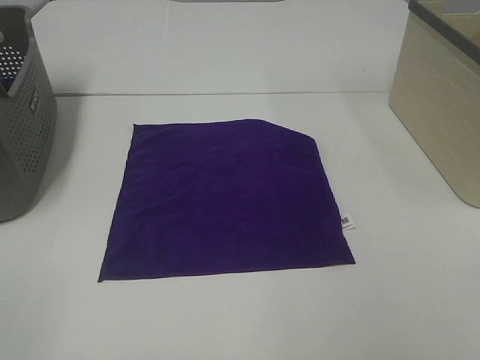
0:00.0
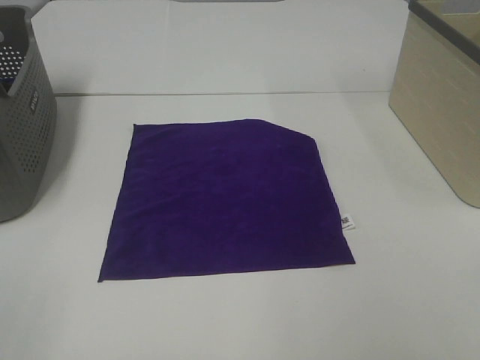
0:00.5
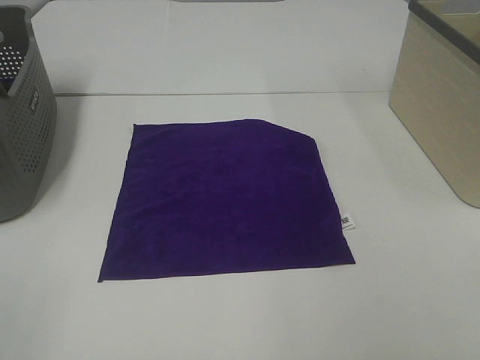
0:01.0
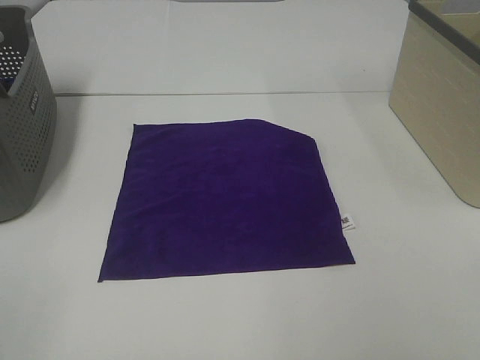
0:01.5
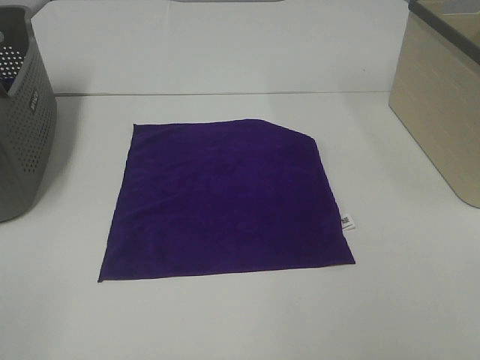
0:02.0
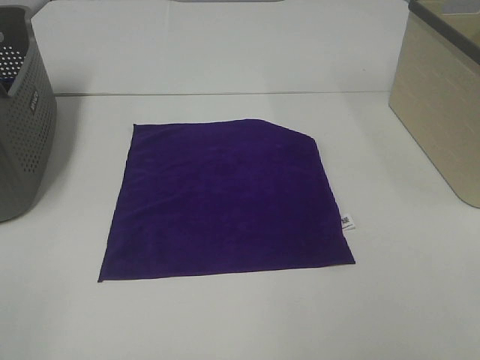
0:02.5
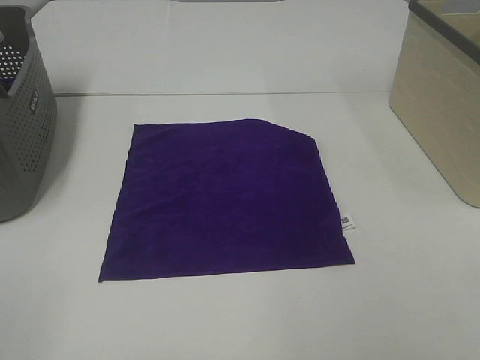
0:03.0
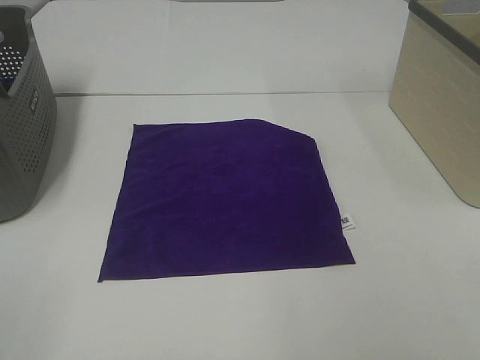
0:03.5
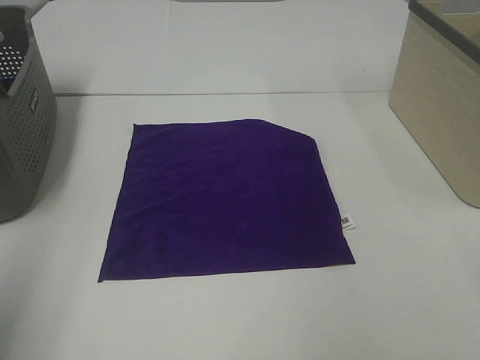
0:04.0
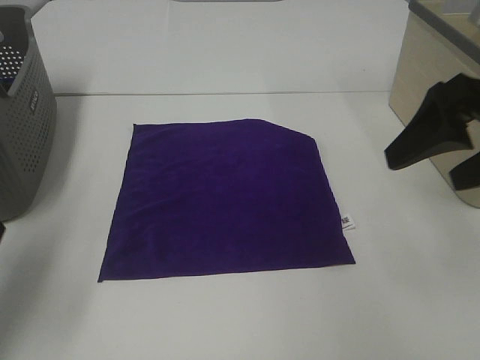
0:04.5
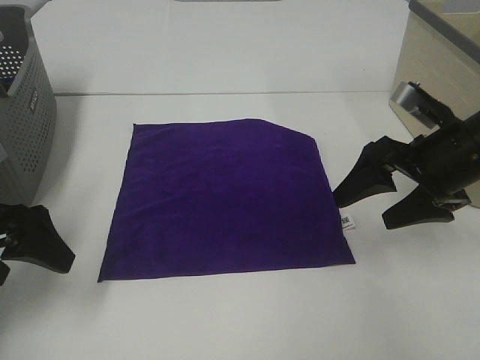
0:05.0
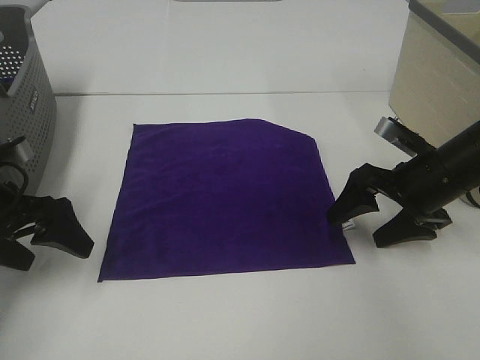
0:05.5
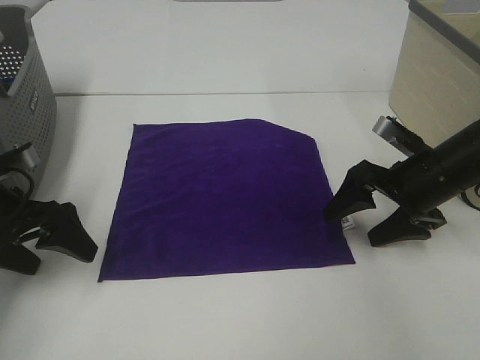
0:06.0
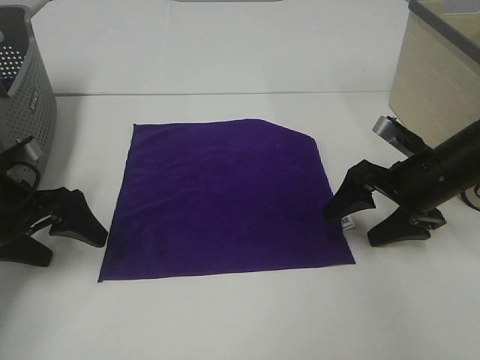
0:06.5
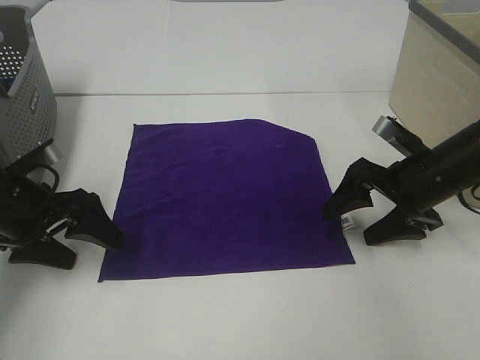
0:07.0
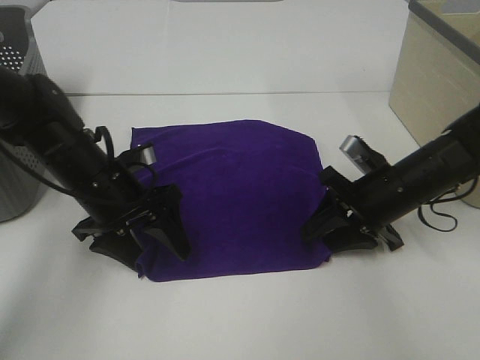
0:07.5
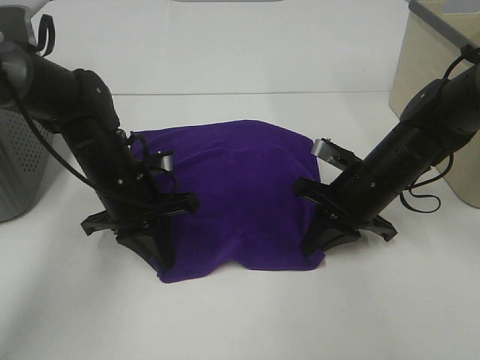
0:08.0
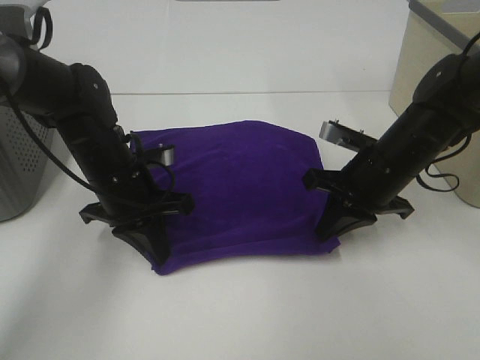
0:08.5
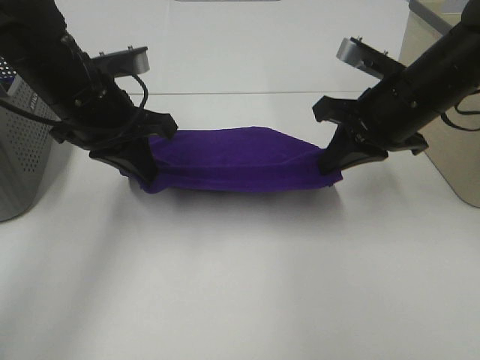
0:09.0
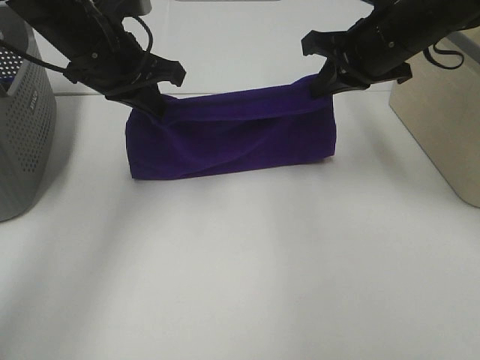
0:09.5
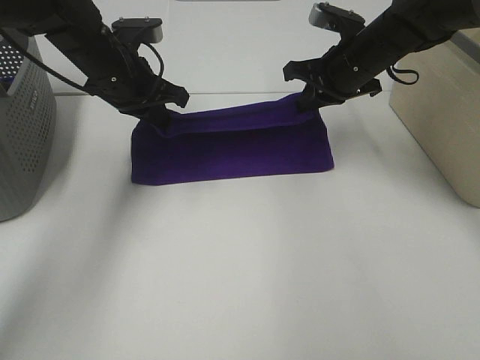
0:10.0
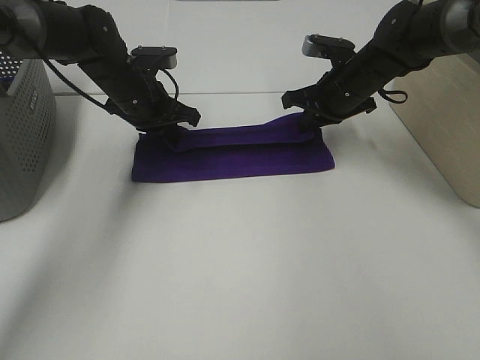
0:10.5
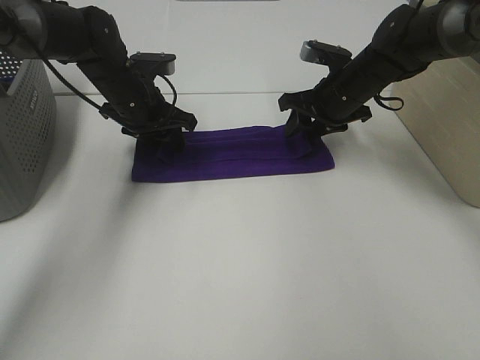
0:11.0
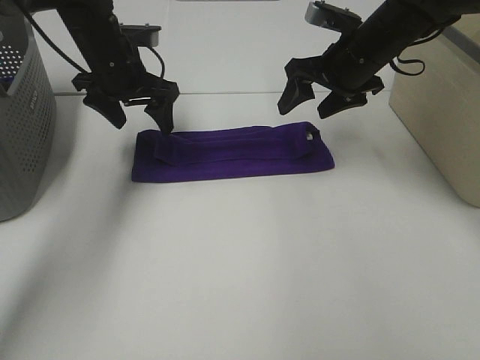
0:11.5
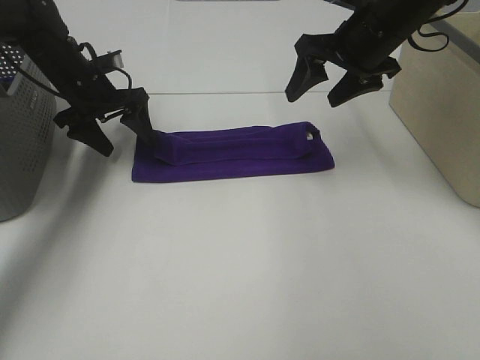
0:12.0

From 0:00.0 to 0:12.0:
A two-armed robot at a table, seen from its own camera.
Task of the whole recording: Fold towels.
Step, from 0:00.0 to 0:08.5: Left hand: grab the bottom left corner of purple towel.
Step, from 0:00.0 to 0:08.5: Right hand: grab the bottom right corner of purple towel.
Step, from 0:09.0 to 0:10.5: Left hand: fold the purple towel up.
Step, from 0:09.0 to 0:10.5: Right hand: fold the purple towel up.
From 0:00.0 to 0:02.0: Both grippers stay about where they are.
From 0:02.0 to 0:04.0: The left gripper shifts approximately 15 cm forward and upward.
From 0:04.0 to 0:06.0: Both grippers move downward and forward, about 30 cm.
From 0:06.0 to 0:08.0: The left gripper travels to the right and forward by approximately 15 cm, and closes, while the right gripper moves to the left, approximately 5 cm, and closes its fingers.
From 0:08.0 to 0:10.0: The grippers both shift forward and upward by roughly 15 cm.
From 0:10.0 to 0:12.0: The left gripper is displaced to the left by roughly 5 cm, and opens, while the right gripper moves upward, about 5 cm, and opens up.

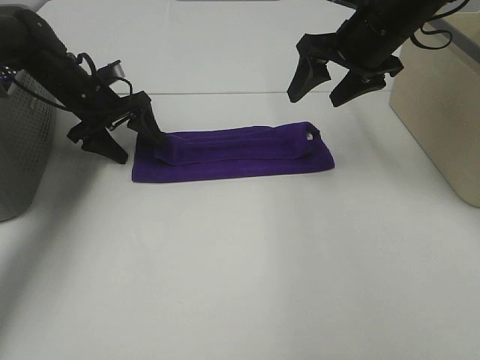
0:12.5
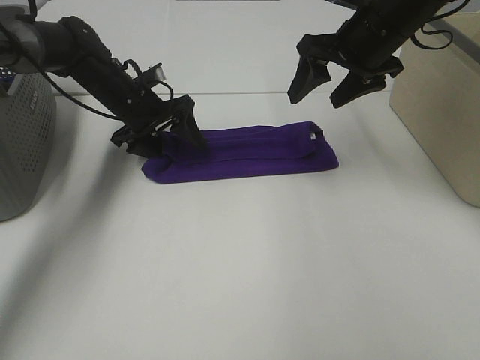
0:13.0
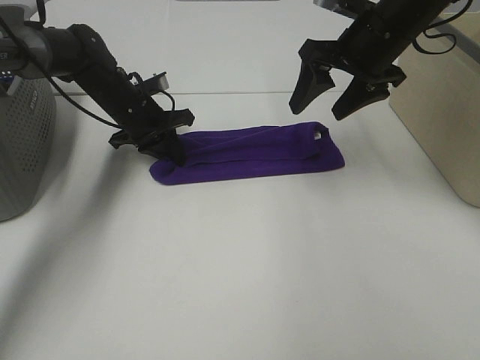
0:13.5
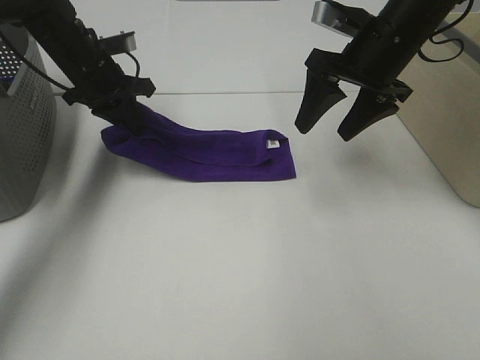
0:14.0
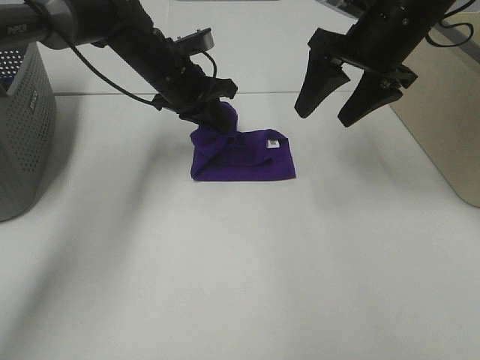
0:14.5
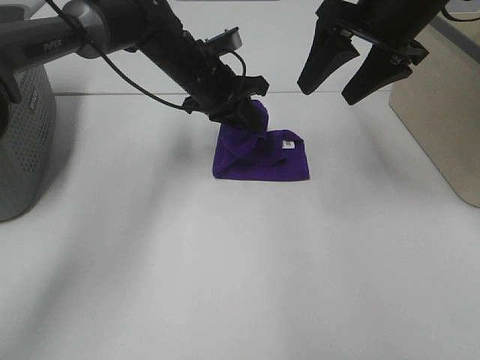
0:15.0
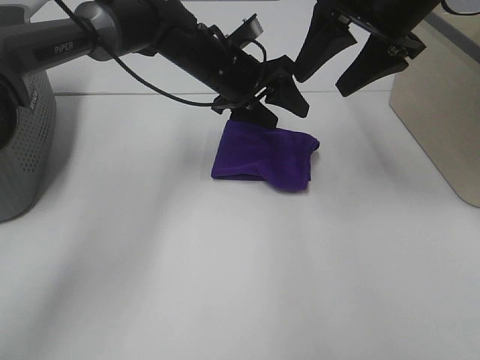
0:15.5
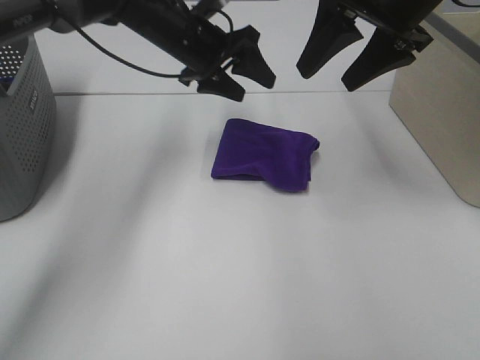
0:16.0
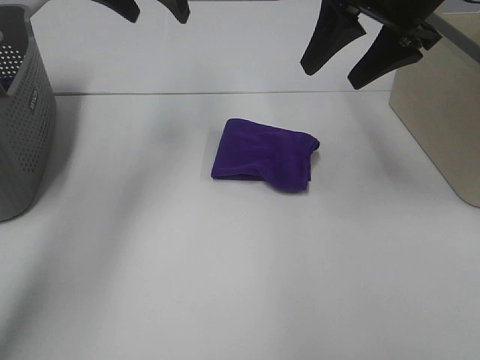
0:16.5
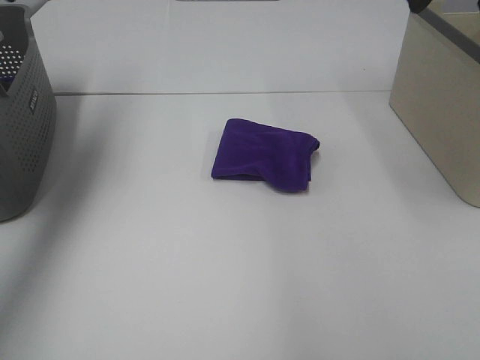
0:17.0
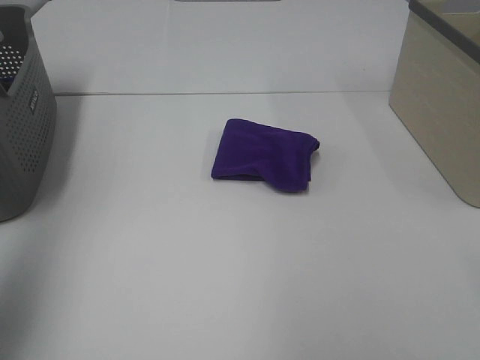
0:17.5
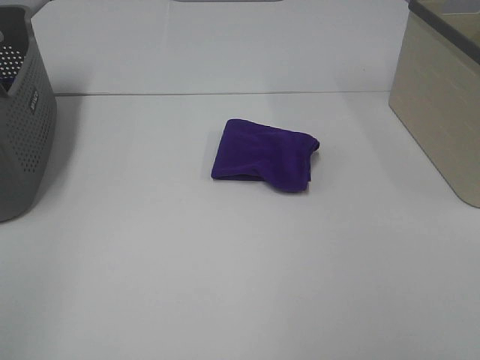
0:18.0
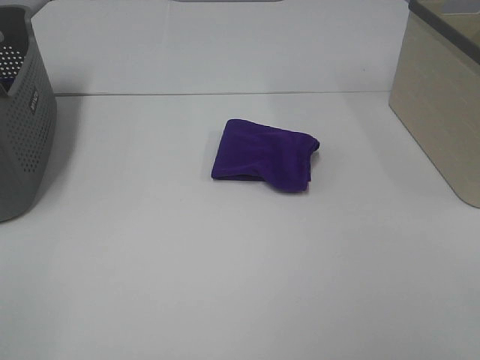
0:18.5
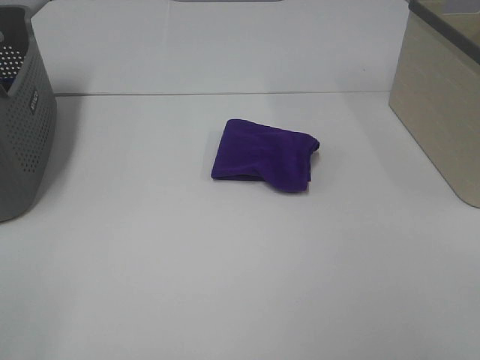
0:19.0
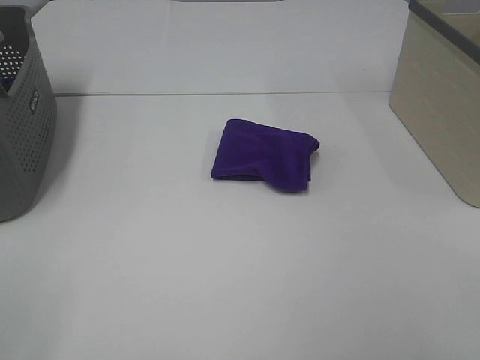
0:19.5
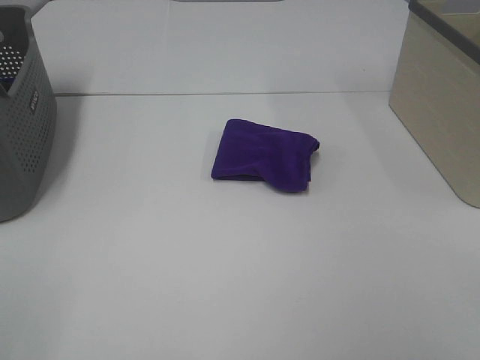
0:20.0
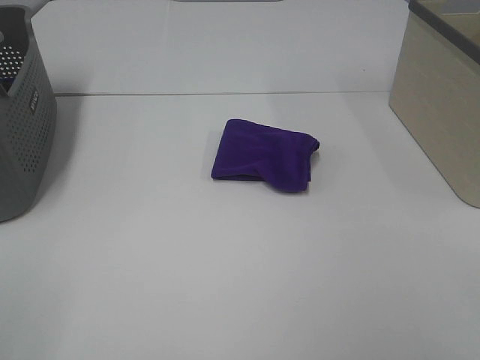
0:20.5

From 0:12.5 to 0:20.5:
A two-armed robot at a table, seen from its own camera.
Task of the whole recording: Fold towels.
Step, from 0:12.5 to 0:15.0: Left hand: fold the purple towel from left to right.
From 0:12.5 to 0:14.5: The left gripper swings left and right, approximately 15 cm each way, with 2 reversals, and closes.
From 0:14.5 to 0:16.5: The left gripper travels upward by some 15 cm, and opens up. The right gripper travels upward by some 5 cm.
From 0:16.5 to 0:18.5: The grippers both shift backward by some 40 cm.

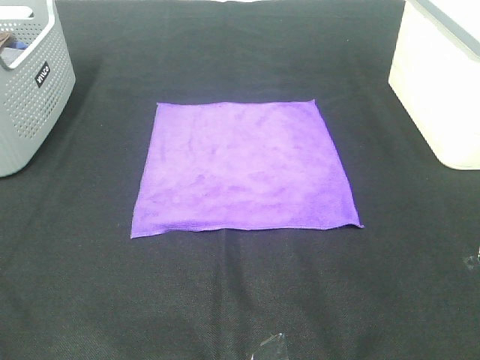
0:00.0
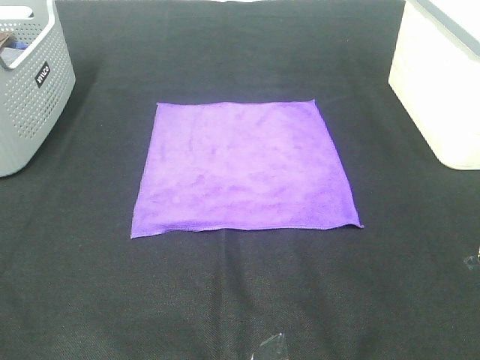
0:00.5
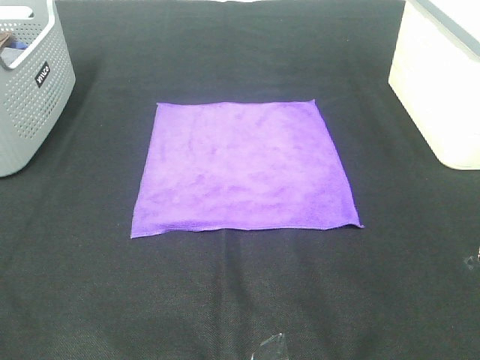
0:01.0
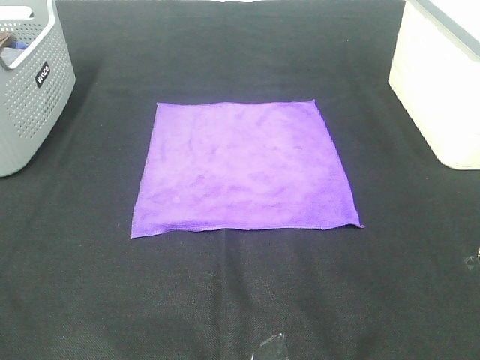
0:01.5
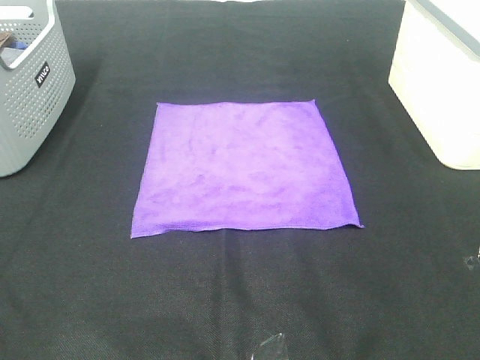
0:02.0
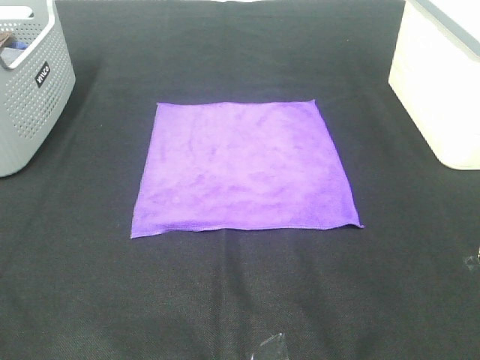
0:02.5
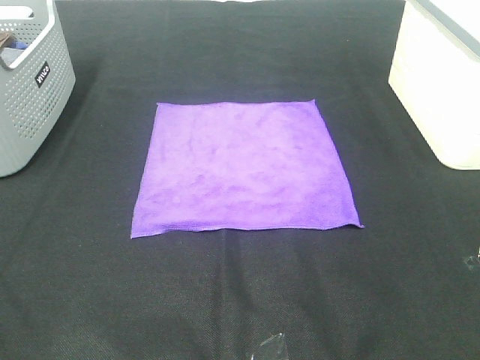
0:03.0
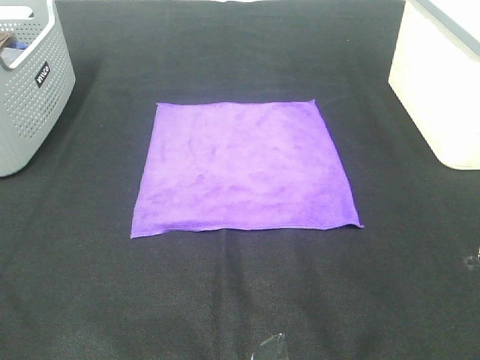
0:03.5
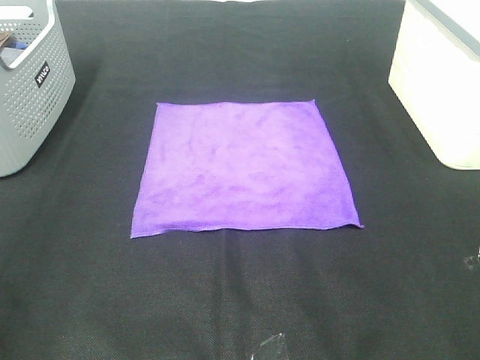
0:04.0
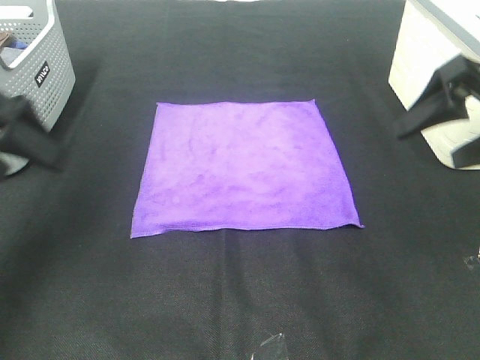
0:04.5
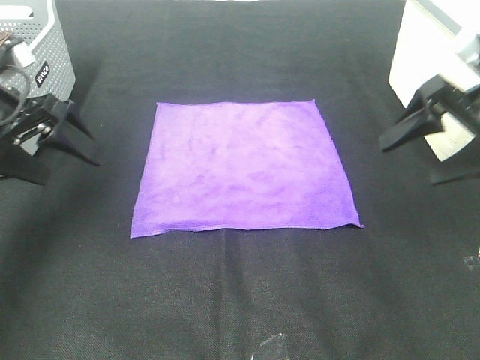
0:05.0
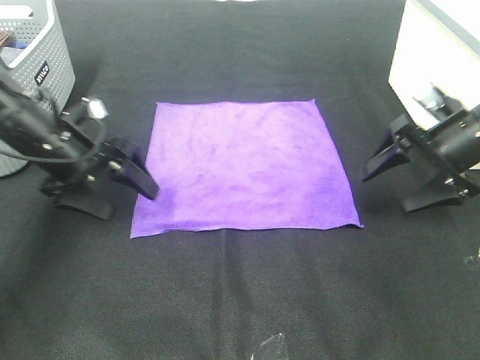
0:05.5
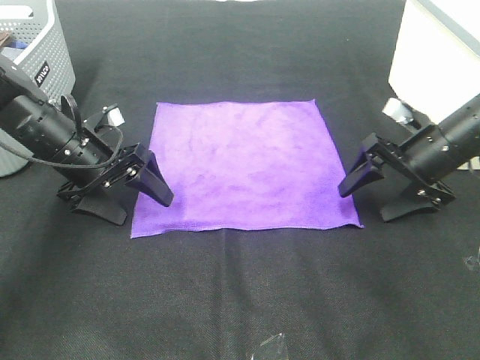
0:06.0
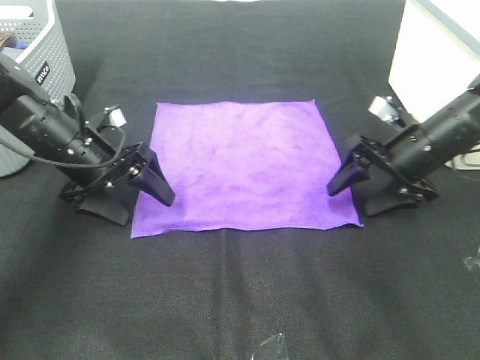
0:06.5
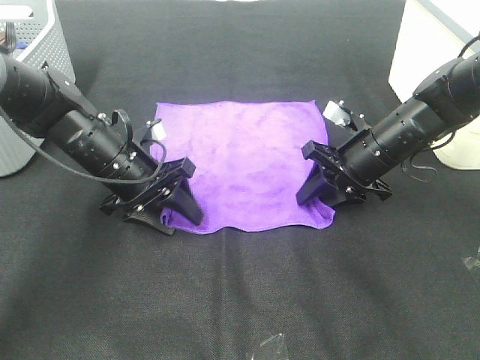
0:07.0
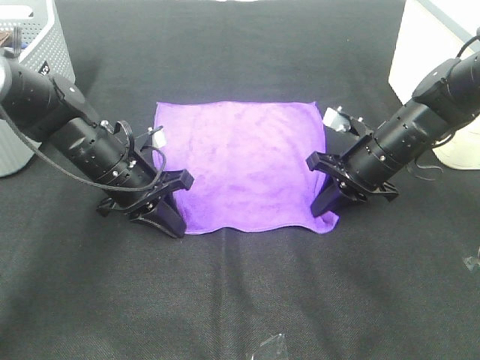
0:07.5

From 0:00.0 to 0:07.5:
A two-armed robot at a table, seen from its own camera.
Task of the whole recording: Fold towels.
Step, from 0:00.0 to 0:07.5: Left hand: grab the bottom left corner of purple towel.
Step, from 0:00.0 to 0:07.5: Right hand: grab the bottom right corner of purple towel.
From 0:00.0 to 0:02.0: Neither gripper changes place.
From 0:04.0 to 0:05.5: Both grippers move forward and downward, about 30 cm.
From 0:05.5 to 0:07.5: The right gripper heads to the left, covering roughly 10 cm, and closes its fingers. The left gripper is displaced to the right by roughly 5 cm, and closes its fingers.
